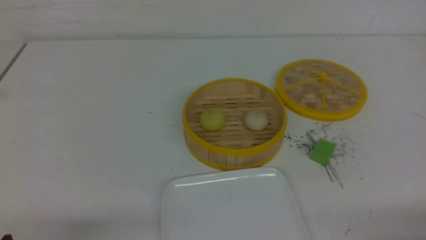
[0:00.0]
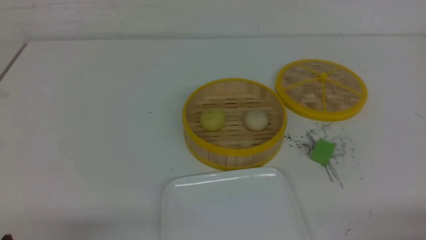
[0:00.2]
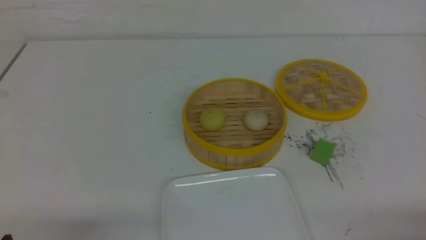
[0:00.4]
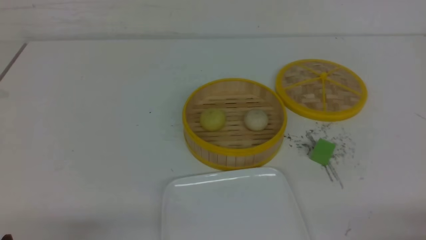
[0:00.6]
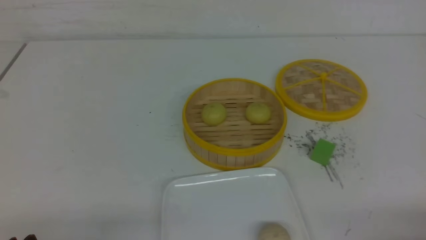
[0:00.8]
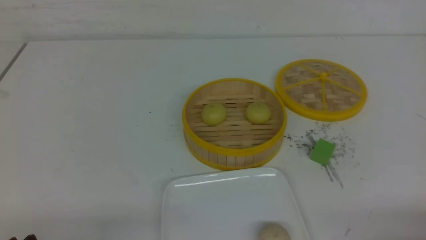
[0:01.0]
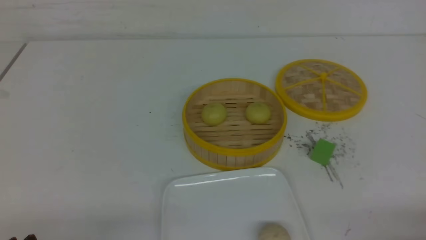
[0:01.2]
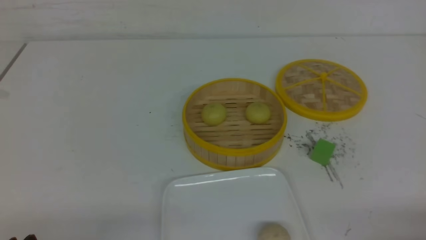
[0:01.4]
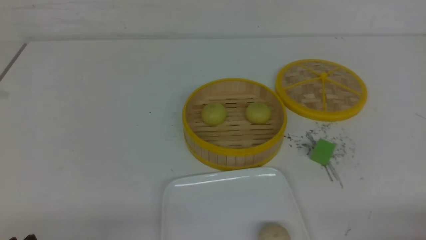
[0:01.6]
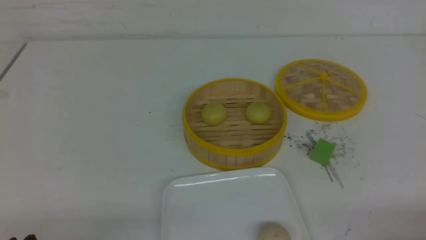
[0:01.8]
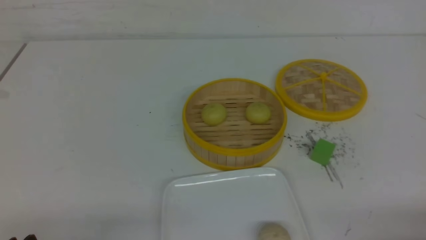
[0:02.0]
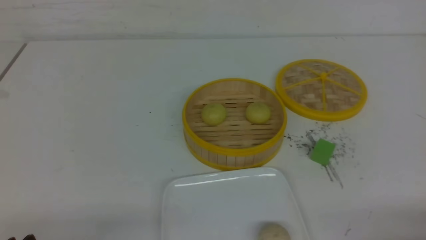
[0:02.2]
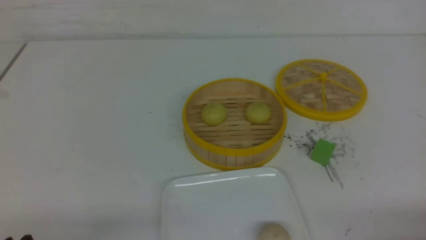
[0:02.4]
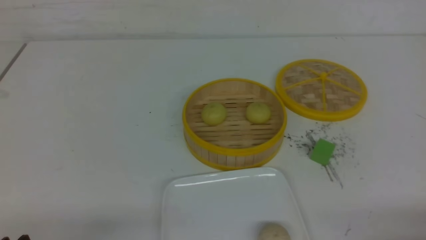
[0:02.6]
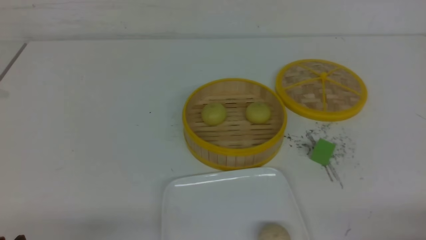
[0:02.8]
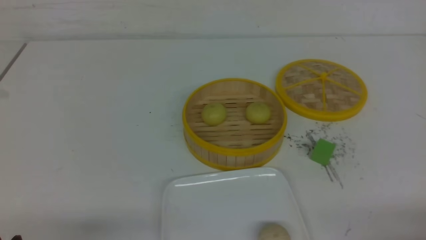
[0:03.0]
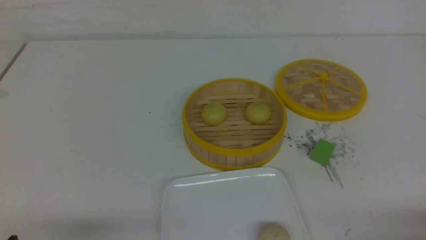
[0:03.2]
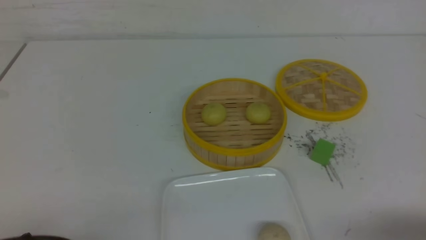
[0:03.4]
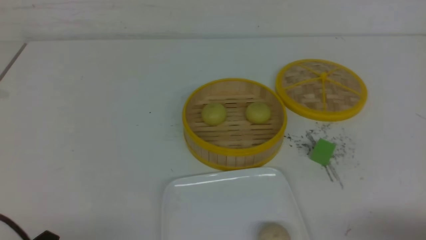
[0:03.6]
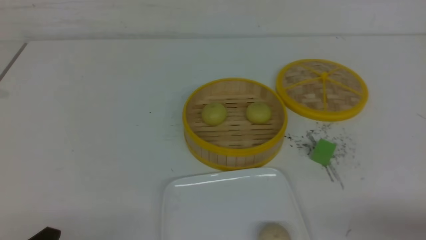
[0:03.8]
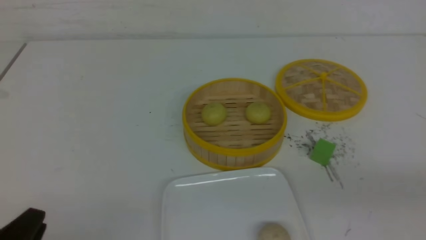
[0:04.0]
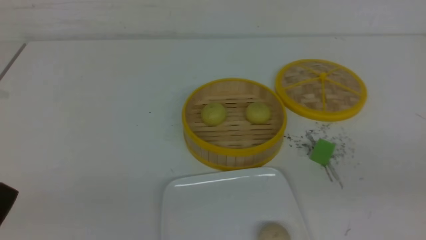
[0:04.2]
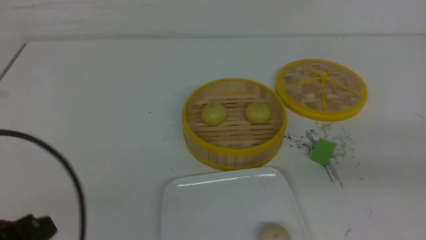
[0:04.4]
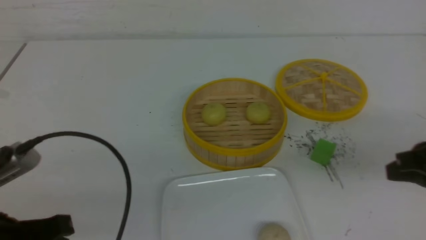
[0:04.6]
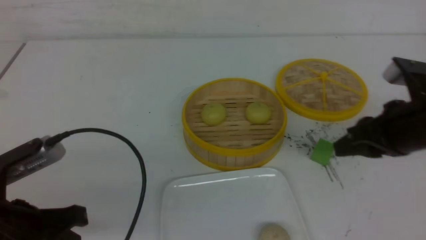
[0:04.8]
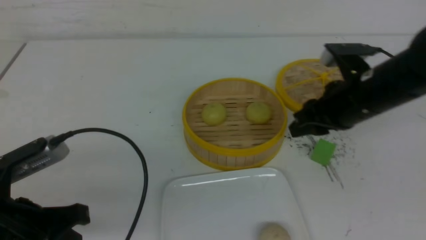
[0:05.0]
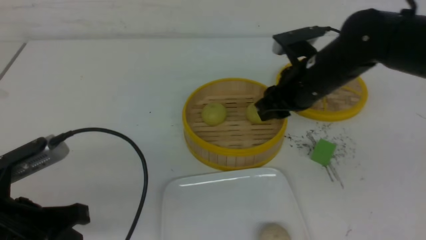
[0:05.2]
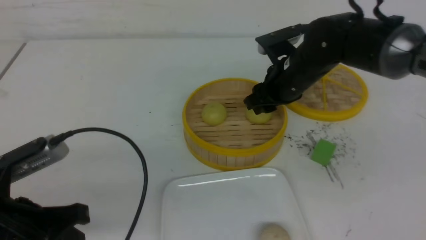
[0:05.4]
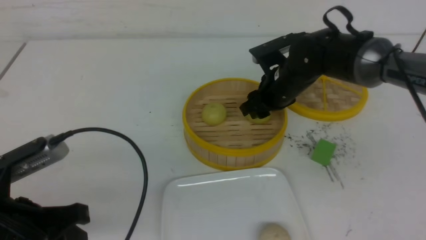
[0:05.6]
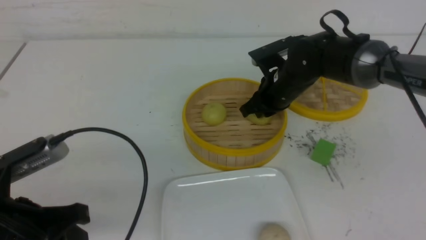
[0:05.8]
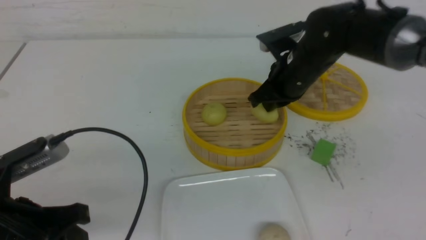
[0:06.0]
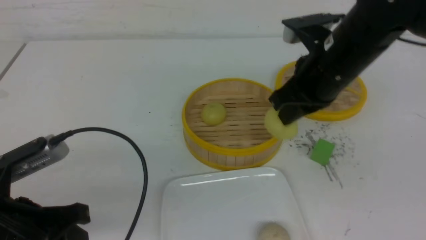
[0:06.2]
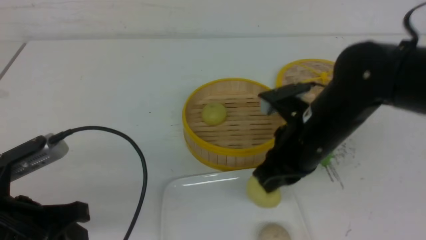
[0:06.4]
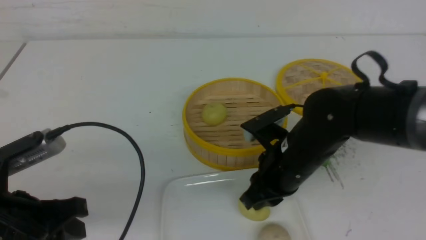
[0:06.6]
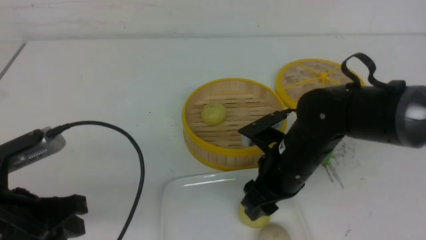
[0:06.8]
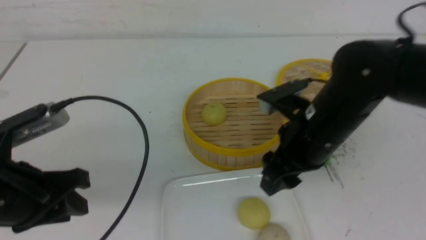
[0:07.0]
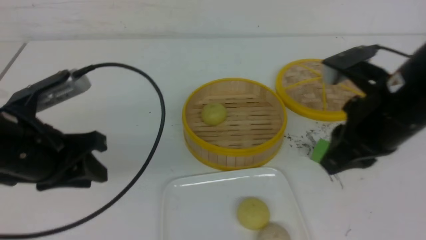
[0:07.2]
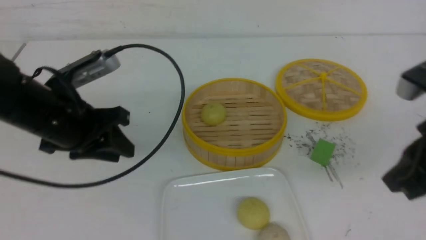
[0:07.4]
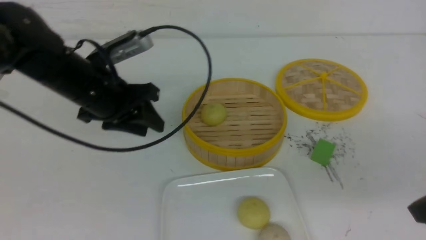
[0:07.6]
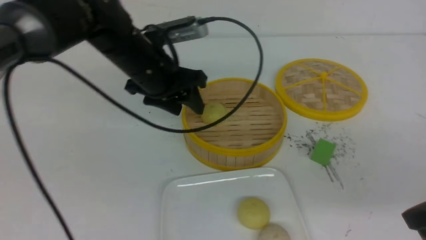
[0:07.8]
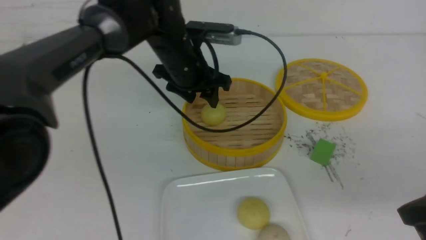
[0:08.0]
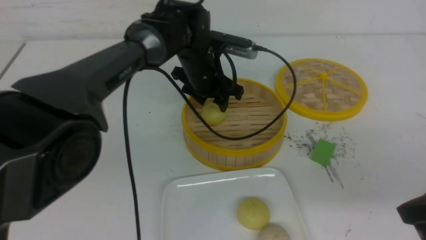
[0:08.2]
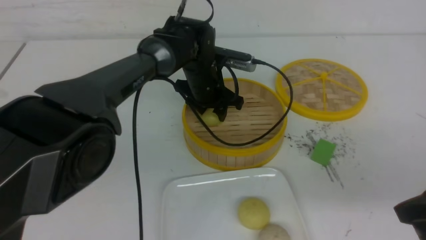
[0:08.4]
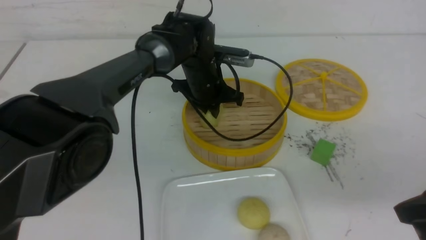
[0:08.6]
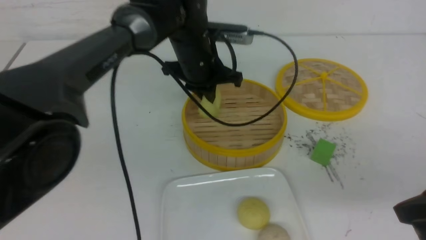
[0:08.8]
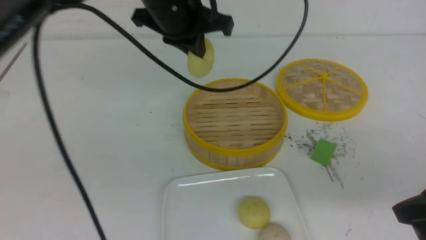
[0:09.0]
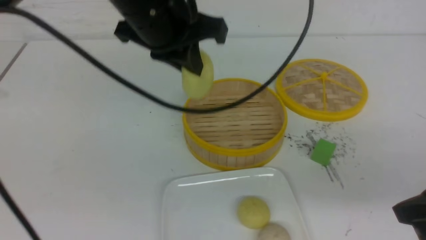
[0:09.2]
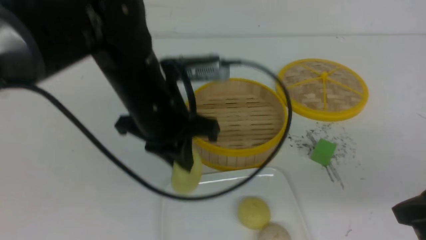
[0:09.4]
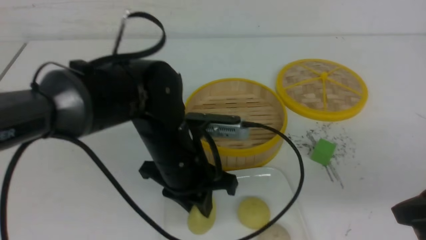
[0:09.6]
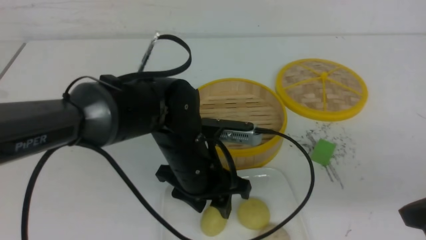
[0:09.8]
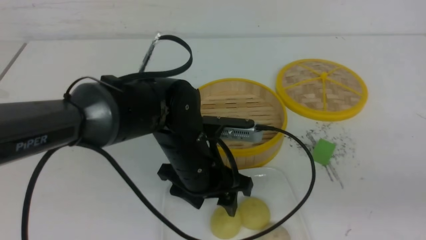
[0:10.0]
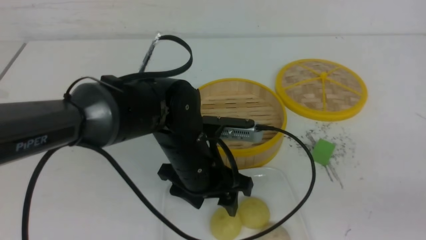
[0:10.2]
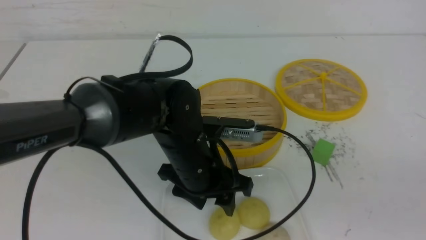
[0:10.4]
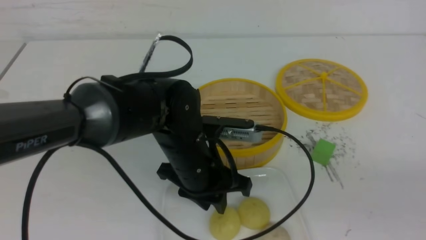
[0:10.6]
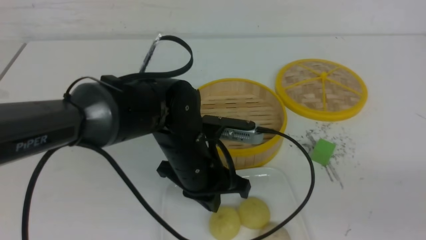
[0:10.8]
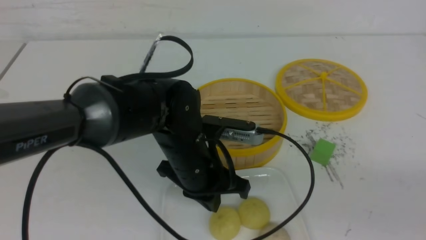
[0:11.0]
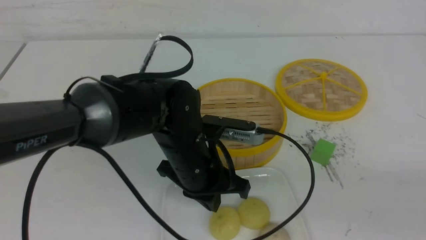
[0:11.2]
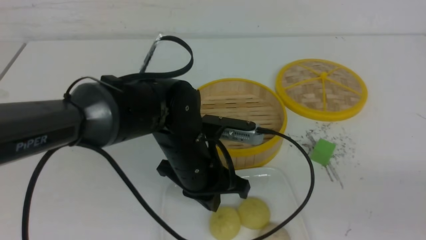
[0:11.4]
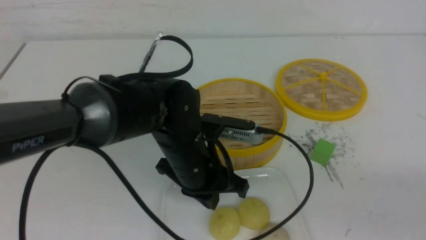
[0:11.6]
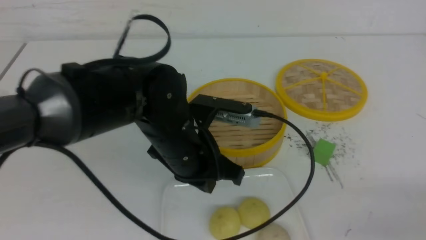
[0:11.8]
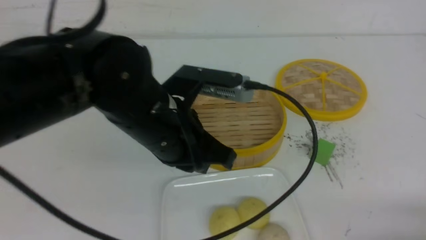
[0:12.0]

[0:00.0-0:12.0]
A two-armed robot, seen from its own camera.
Step, 0:00.0 to 0:05.6: Grasp the yellow baozi on the steamer with right gripper.
Step, 0:05.8 to 0:06.8: Place the yellow baozi on the plate with right gripper.
Step, 0:07.2 to 0:08.6: Grasp the yellow baozi on the steamer with left gripper.
Step, 0:08.8 to 0:09.8: Place the yellow baozi on the plate with left gripper.
0:03.0 to 0:04.4: The left gripper shifts roughly 10 cm upward, and closes up.
0:04.4 to 0:06.0: The right gripper shifts some 30 cm forward and to the left, and opens, then closes once more; the left gripper goes about 5 cm forward, and opens its fingers.
0:06.0 to 0:07.6: The right gripper moves backward and to the right, about 25 cm, and opens and closes again. Meanwhile the left gripper heads forward, covering about 20 cm.
0:07.6 to 0:09.0: The left gripper heads to the right and upward, covering roughly 15 cm, and closes up.
0:09.0 to 0:10.4: The right gripper heads backward, covering approximately 10 cm. The left gripper shifts some 20 cm downward and backward, and opens its fingers.
0:10.4 to 0:12.0: The left gripper is displaced upward by roughly 10 cm, and closes up, while the right gripper travels downward by roughly 15 cm.

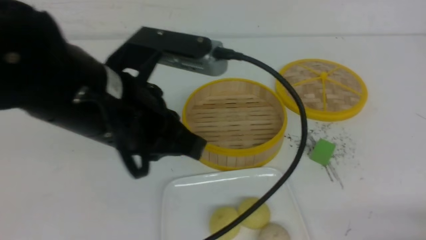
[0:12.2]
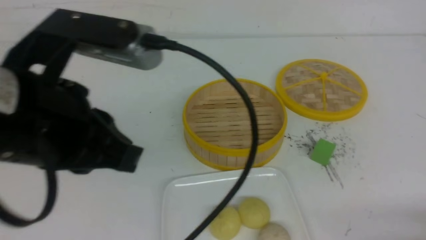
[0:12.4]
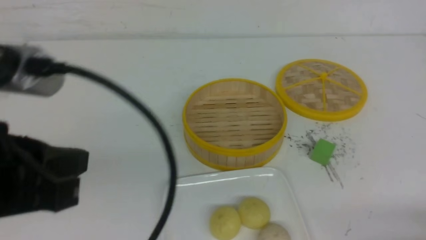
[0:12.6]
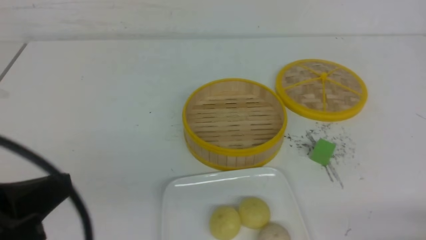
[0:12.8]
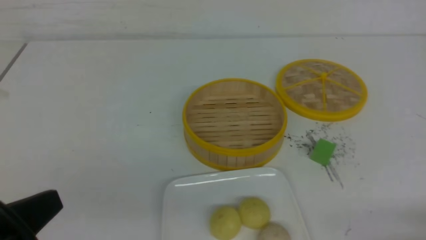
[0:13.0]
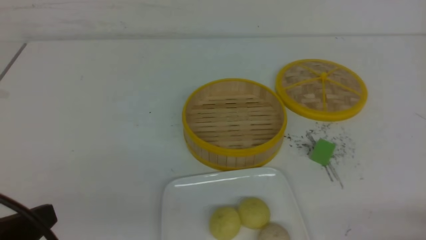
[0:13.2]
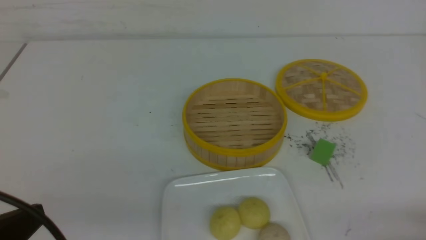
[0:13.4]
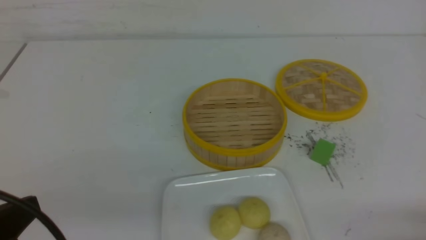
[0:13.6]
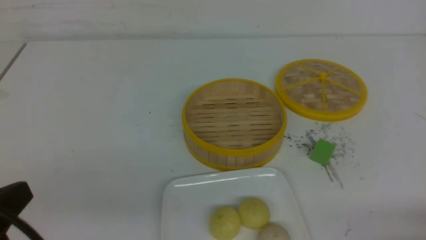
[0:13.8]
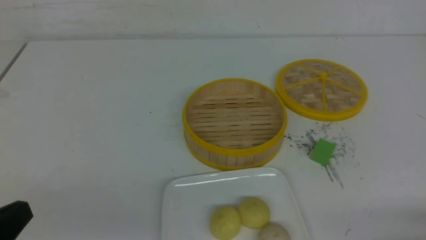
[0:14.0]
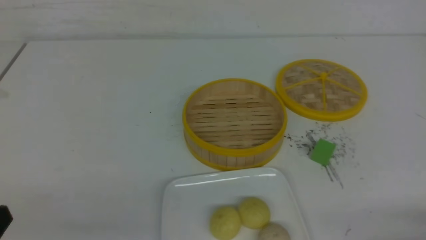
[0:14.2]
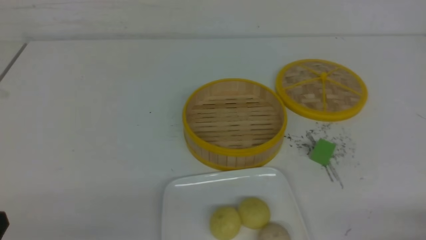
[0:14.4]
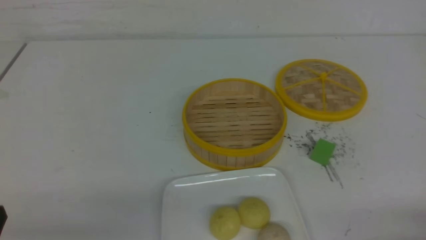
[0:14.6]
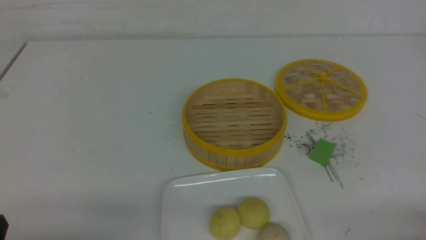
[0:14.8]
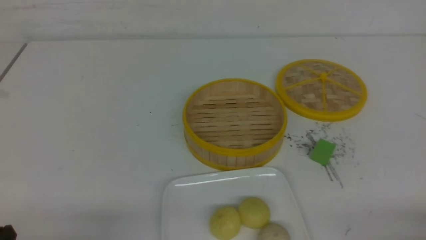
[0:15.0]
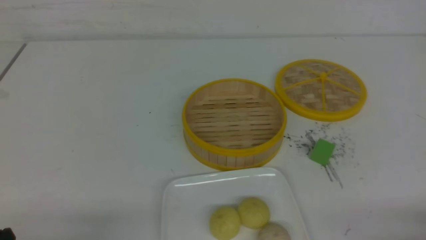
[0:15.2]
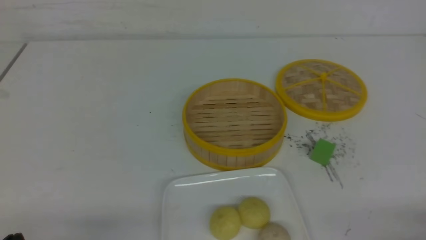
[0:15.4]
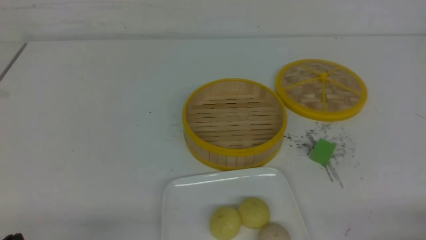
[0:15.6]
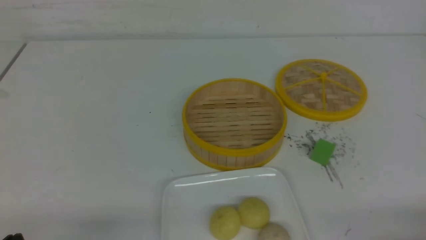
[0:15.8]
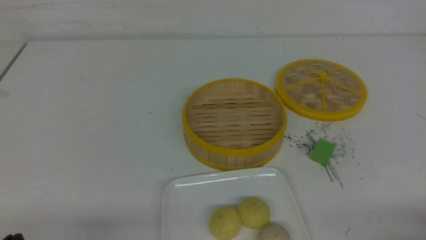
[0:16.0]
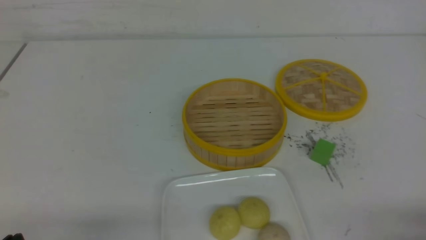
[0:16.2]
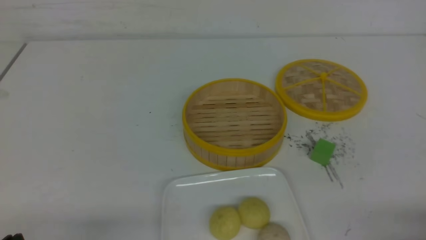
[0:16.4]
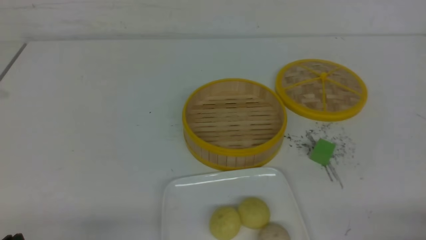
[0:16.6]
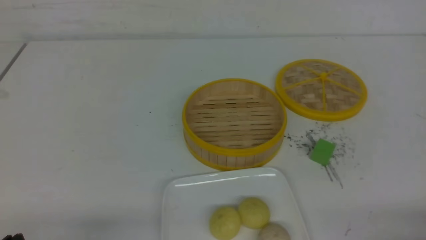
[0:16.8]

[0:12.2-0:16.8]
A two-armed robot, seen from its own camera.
0:12.2 to 0:13.8: The left gripper heads to the left, backward and downward, covering roughly 20 cm.
0:13.8 to 0:15.2: The left gripper is displaced downward by roughly 10 cm.
0:15.2 to 0:16.8: Both grippers stay about where they are.
